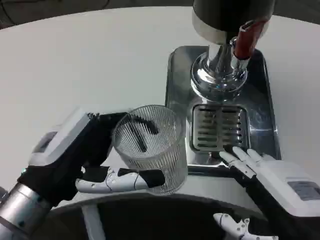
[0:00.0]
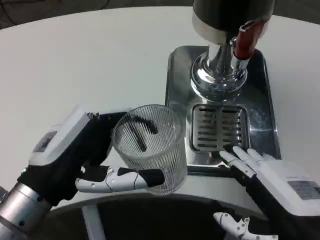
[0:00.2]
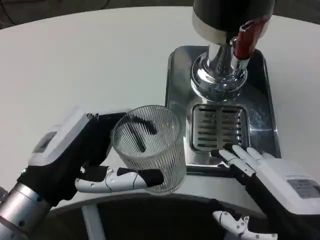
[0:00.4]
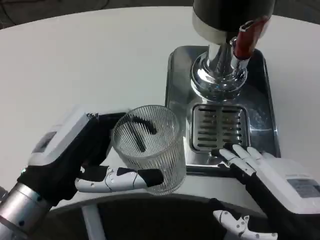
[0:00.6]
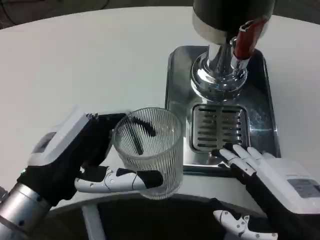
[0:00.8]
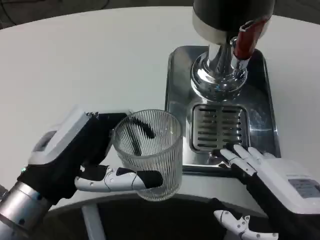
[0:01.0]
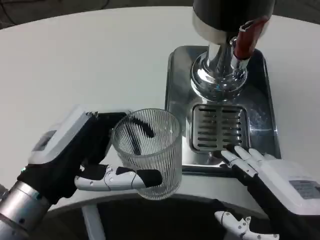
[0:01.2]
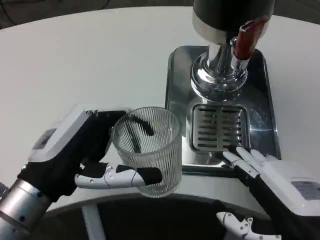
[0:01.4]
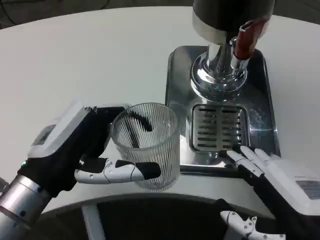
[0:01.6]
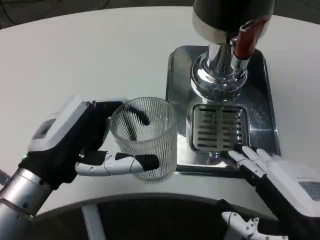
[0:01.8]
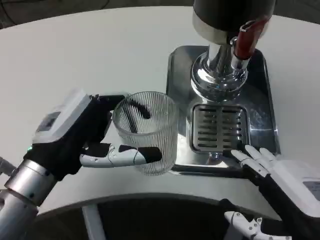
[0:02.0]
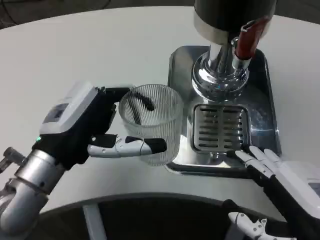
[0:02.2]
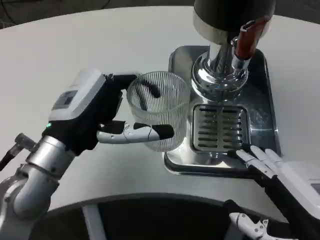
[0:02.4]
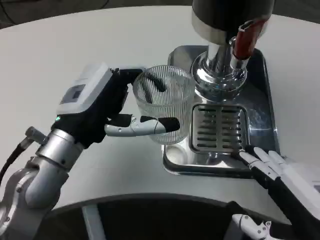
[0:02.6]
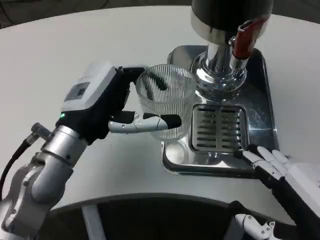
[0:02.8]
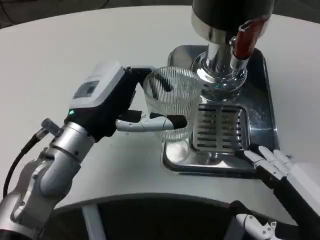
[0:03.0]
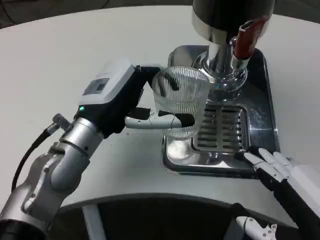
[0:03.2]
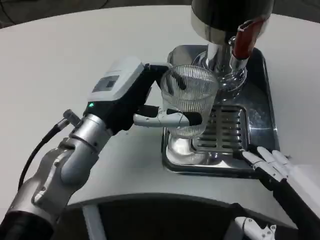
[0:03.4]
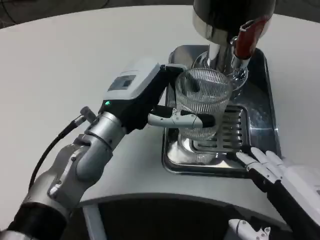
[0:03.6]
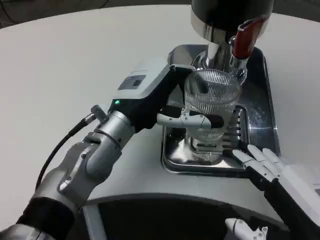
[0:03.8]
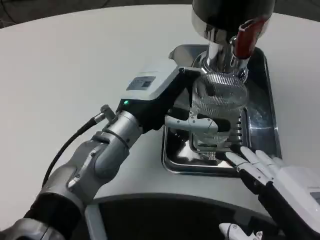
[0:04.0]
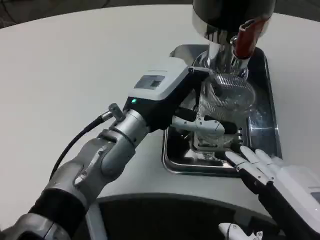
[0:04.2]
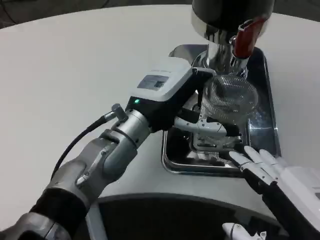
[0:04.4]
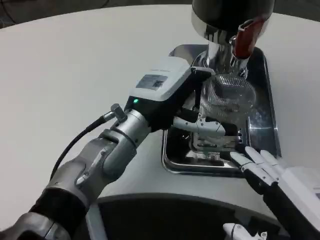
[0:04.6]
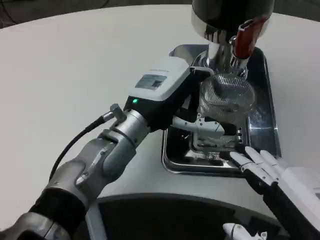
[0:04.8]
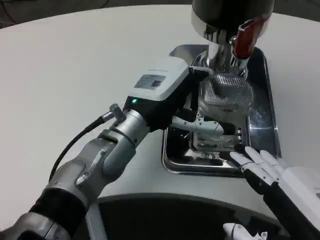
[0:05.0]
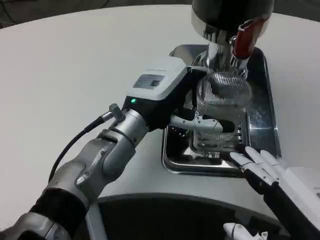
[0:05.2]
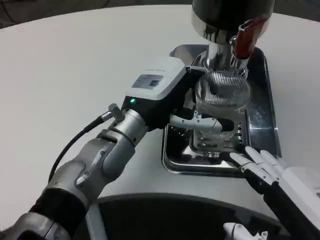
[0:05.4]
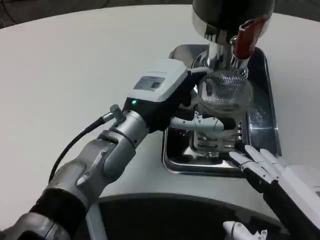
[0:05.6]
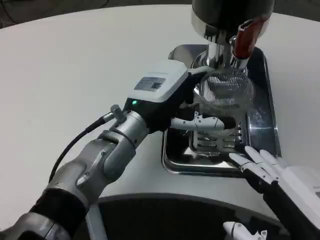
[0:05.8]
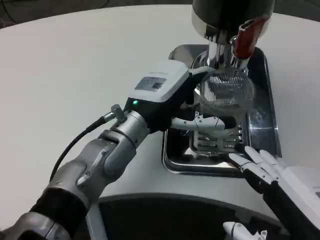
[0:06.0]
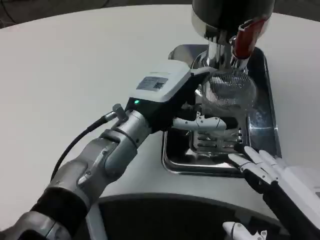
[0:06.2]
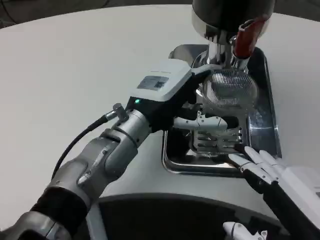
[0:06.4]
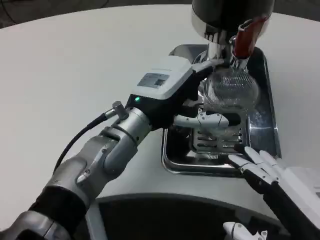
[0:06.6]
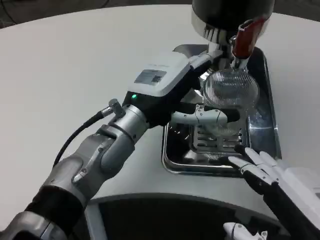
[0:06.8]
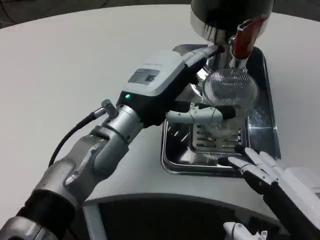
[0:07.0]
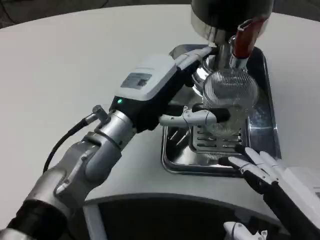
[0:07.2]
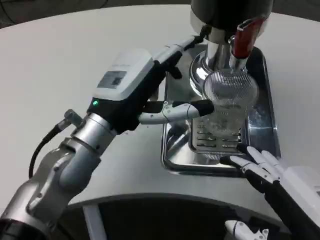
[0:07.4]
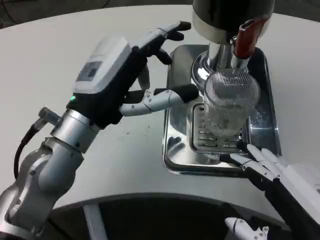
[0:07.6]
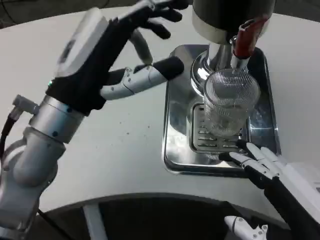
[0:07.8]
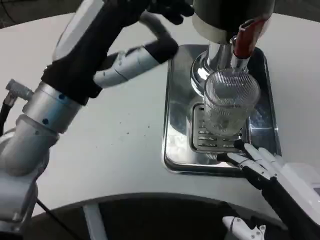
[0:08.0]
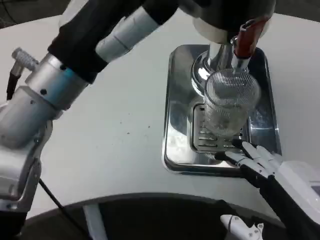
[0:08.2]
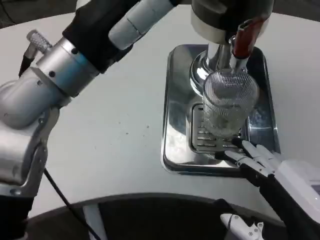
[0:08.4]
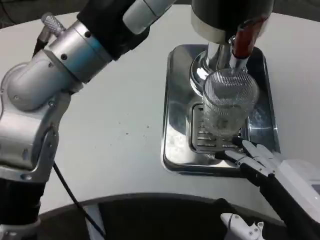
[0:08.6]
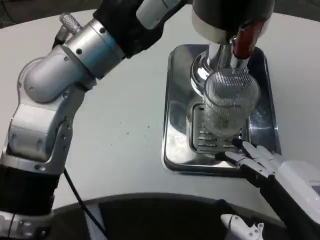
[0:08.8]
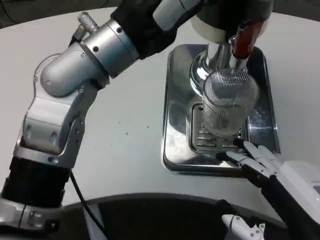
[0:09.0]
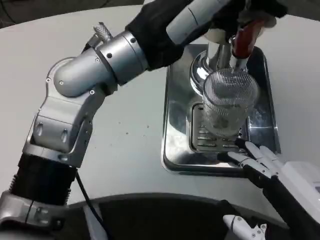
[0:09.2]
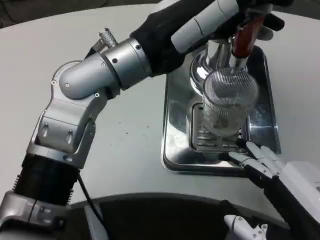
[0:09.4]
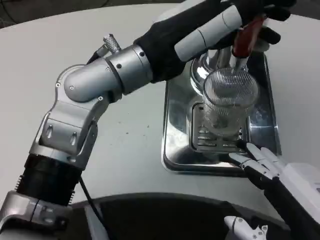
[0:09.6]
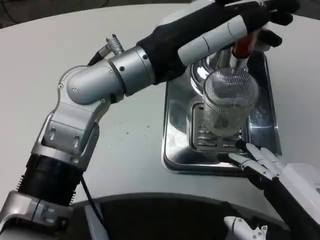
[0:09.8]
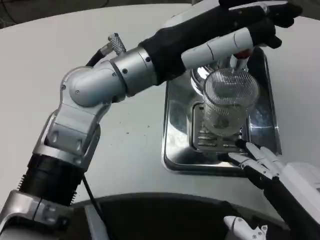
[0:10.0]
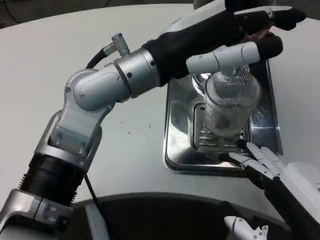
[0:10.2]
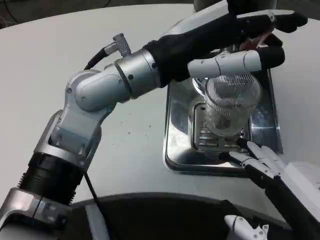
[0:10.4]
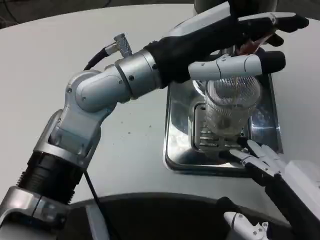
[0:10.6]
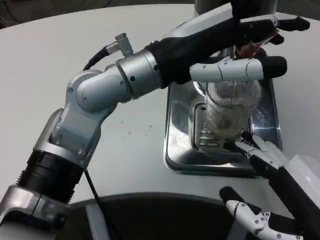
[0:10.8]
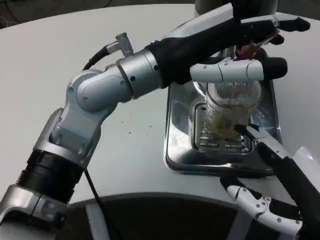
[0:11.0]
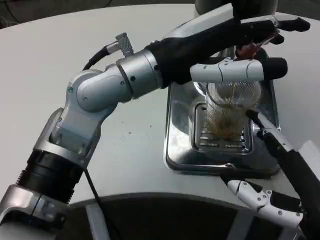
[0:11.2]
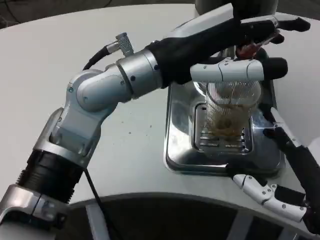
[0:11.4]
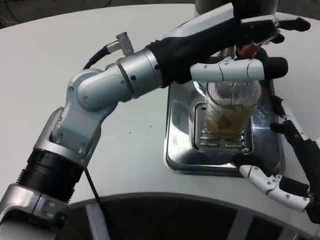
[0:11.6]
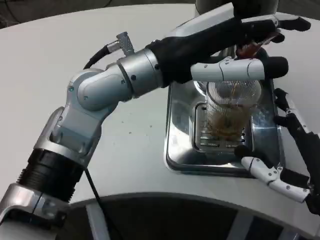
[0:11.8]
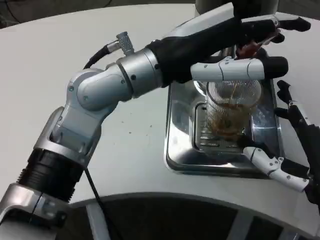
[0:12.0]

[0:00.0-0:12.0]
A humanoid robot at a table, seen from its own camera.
Task of the whole recording: Grasp the cup under the faucet to collect the drink, then remove the cup.
0:00.0 to 0:01.6: Both hands stay put.
0:01.6 to 0:03.0: The left hand goes approximately 10 cm forward.
0:03.0 to 0:04.4: The left hand goes some 5 cm to the right.
0:04.4 to 0:06.0: Both hands stay about where they are.
0:06.0 to 0:07.6: The left hand moves to the left and backward, roughly 10 cm.
0:07.6 to 0:09.0: The left hand moves upward, about 10 cm.
0:10.4 to 0:12.0: The right hand heads forward, covering roughly 10 cm.

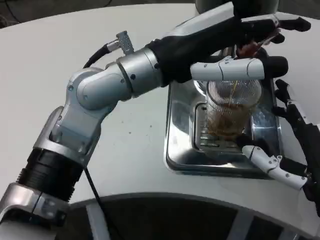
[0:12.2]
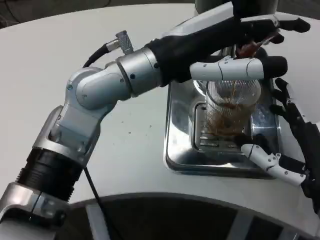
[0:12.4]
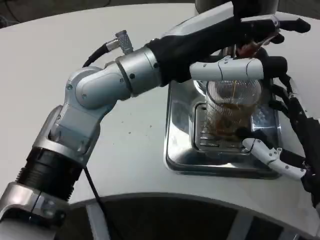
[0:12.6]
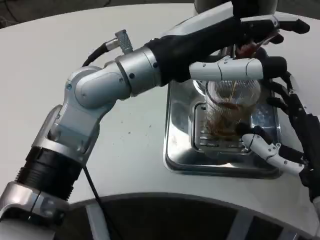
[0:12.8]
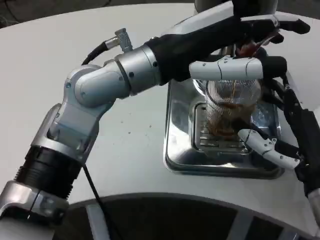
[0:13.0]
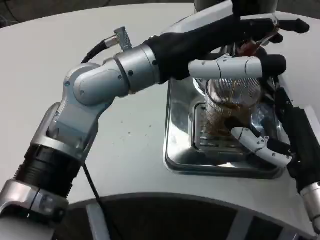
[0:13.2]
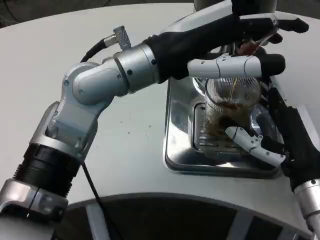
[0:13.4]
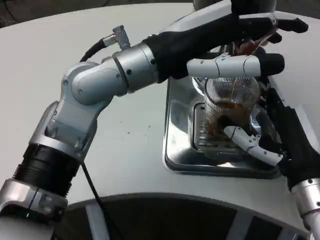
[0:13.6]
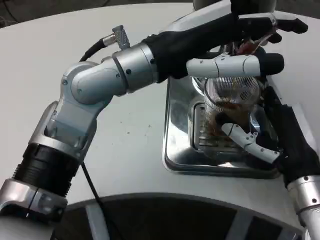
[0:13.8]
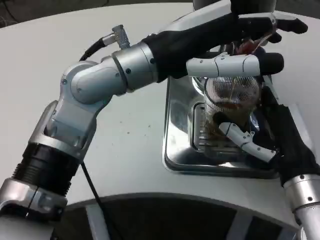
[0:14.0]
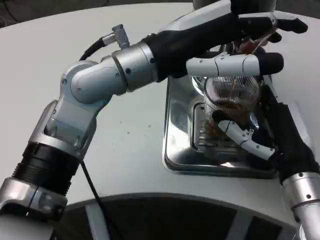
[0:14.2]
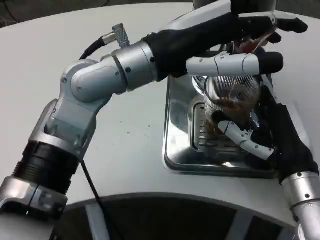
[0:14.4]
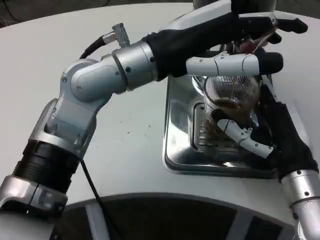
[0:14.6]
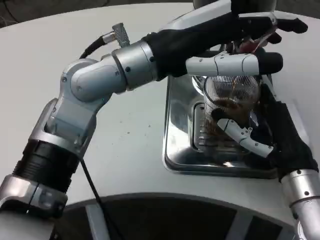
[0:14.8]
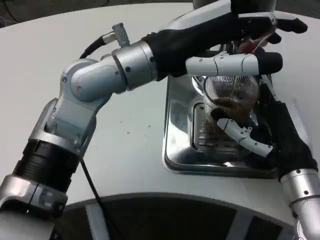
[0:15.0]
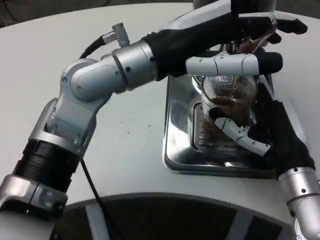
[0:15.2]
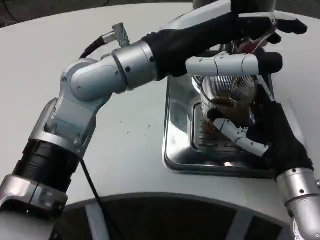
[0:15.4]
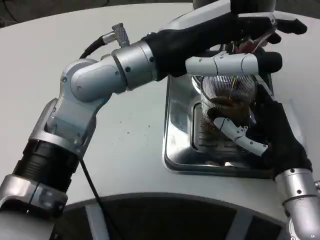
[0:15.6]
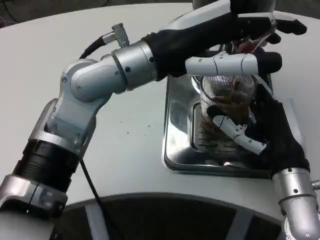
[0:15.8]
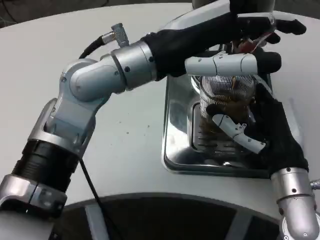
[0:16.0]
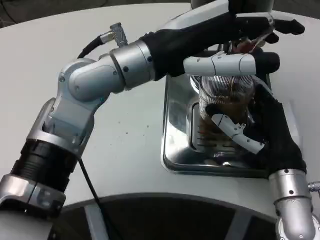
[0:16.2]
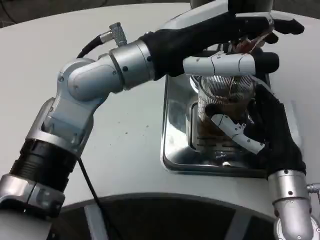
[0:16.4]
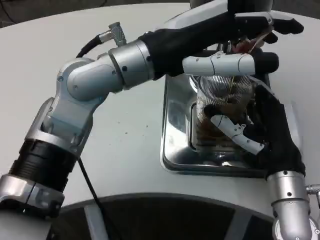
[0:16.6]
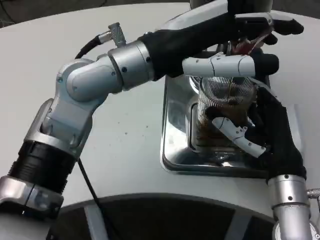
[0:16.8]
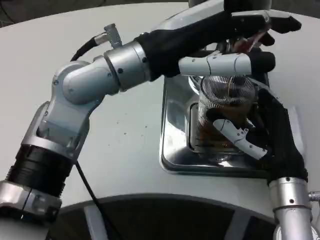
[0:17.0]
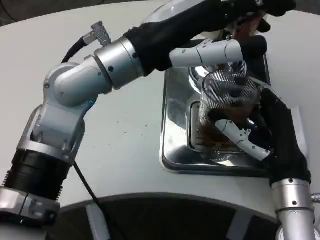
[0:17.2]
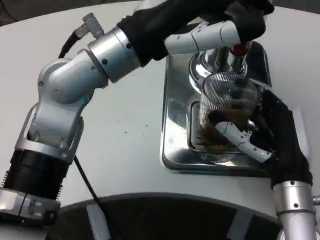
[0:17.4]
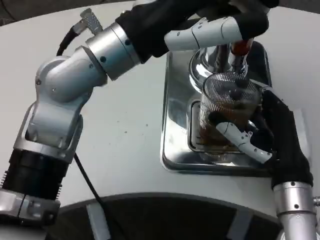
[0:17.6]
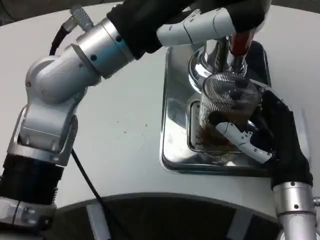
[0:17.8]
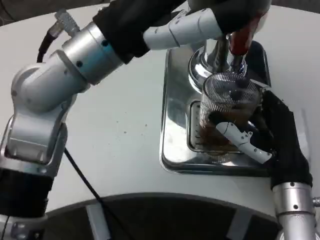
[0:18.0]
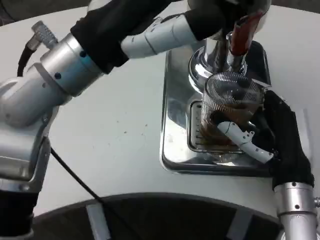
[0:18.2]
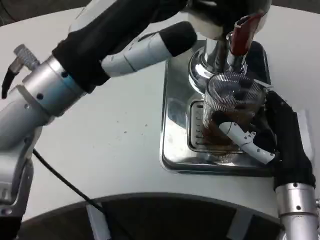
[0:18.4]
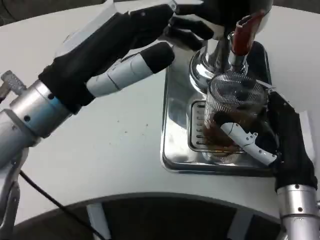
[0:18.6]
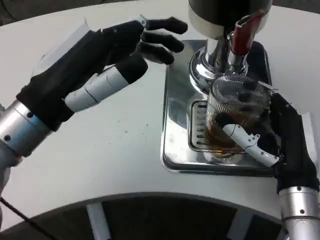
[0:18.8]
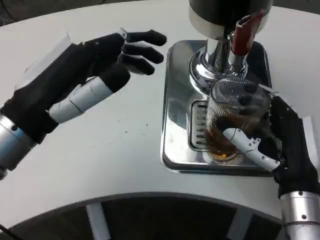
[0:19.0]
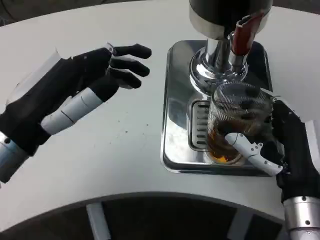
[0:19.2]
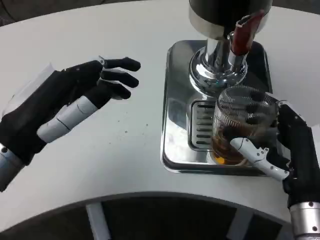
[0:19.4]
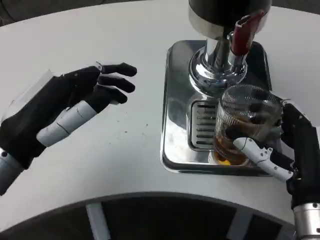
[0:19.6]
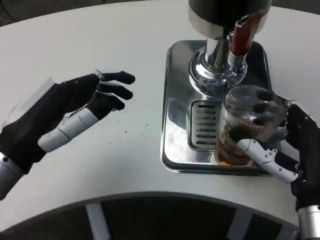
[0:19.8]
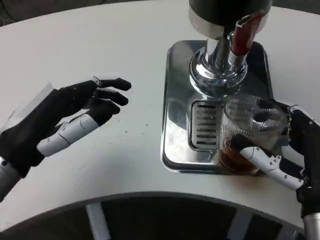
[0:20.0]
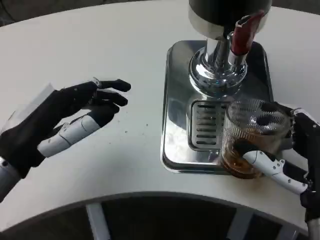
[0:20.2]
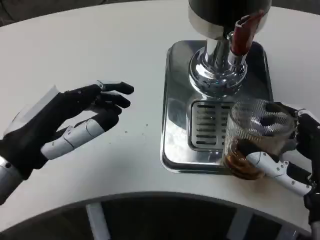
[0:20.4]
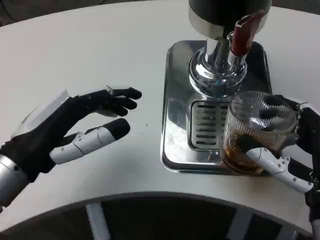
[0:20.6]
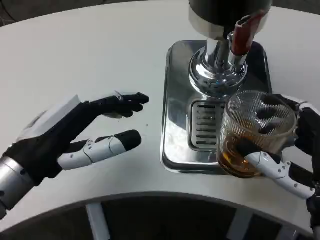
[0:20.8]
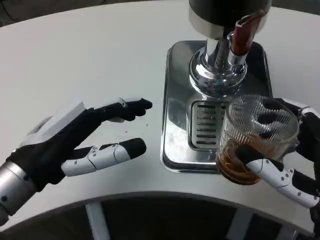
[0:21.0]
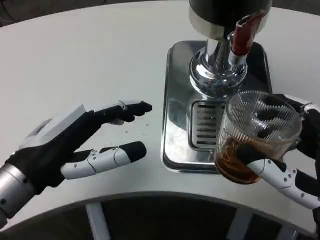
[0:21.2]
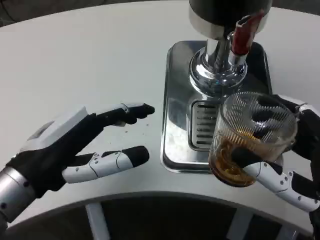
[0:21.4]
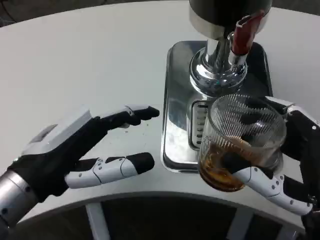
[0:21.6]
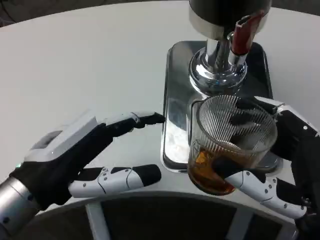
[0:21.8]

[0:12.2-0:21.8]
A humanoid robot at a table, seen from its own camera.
Task of the whole recording: Grasp the cup under the faucet to collect the drink, then remove the cup.
0:12.2 to 0:13.8: The right hand shifts about 5 cm forward.
0:13.8 to 0:15.4: There are only small adjustments of the hands.
0:17.0 to 0:18.6: The left hand shifts some 10 cm to the left and backward.
0:18.6 to 0:20.2: The right hand ends up approximately 5 cm from where it was. The left hand moves downward and to the left, approximately 10 cm.
0:20.2 to 0:21.8: The right hand goes approximately 5 cm backward.

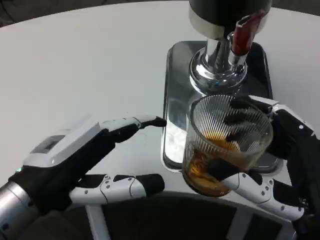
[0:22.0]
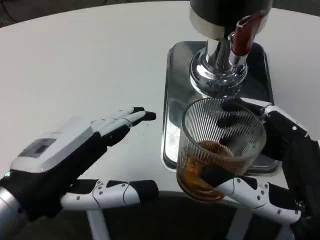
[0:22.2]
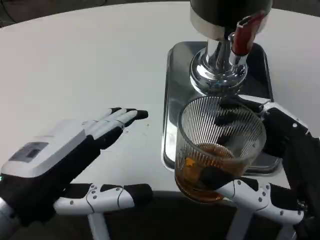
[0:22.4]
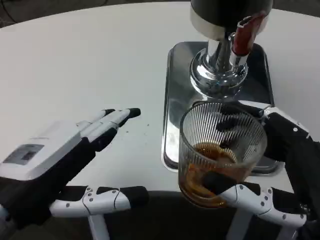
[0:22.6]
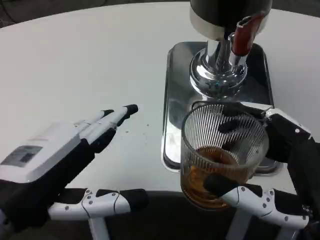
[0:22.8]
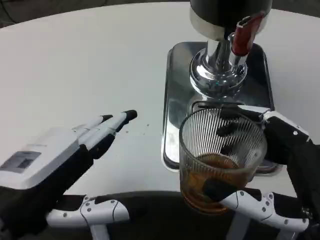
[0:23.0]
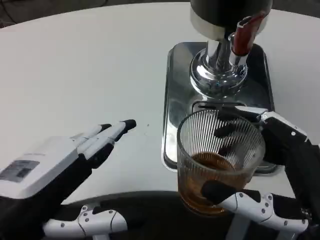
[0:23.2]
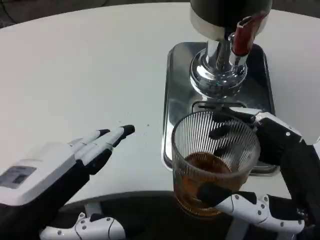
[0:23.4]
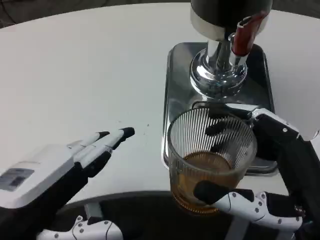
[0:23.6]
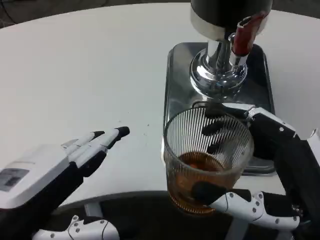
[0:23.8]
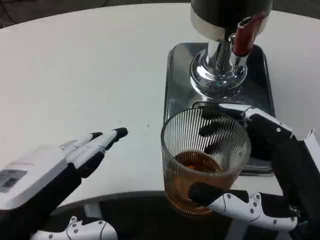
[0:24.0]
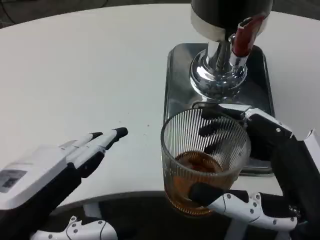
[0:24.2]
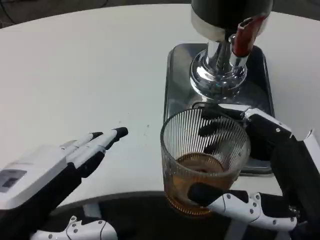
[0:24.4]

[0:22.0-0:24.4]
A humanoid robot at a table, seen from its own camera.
Task of the whole recording: Grasp the cup under the faucet to collect the drink, then remove the cup.
0:23.2 to 0:24.4: Neither hand changes place.
